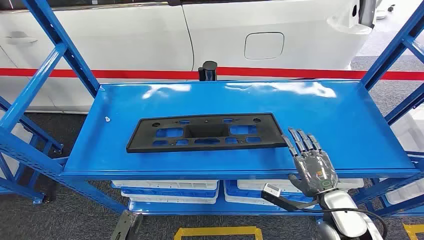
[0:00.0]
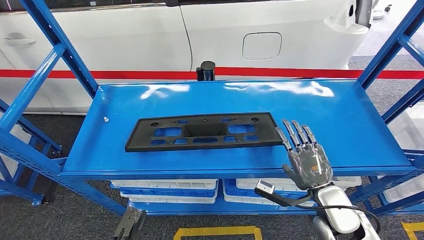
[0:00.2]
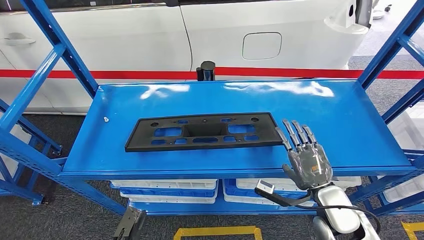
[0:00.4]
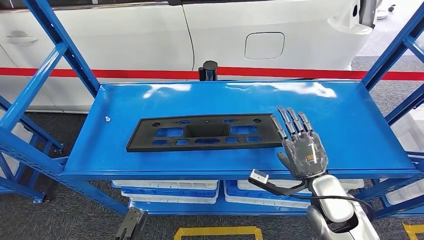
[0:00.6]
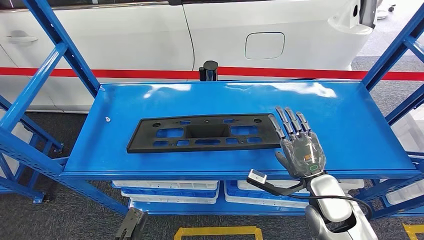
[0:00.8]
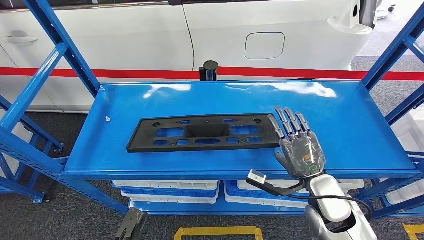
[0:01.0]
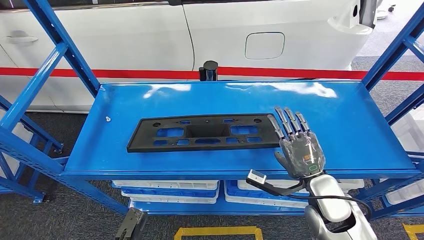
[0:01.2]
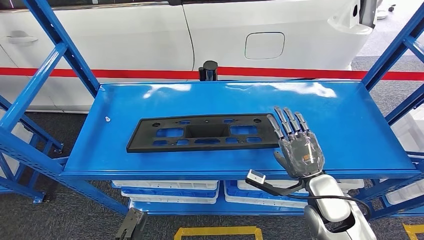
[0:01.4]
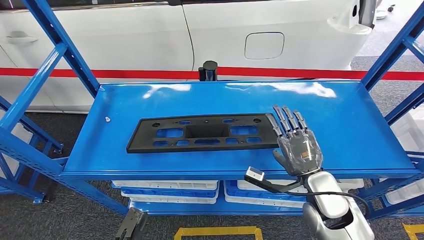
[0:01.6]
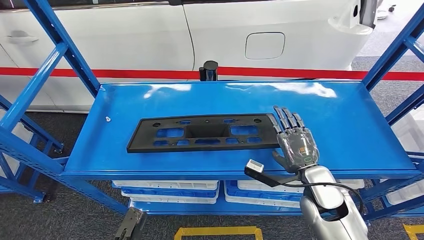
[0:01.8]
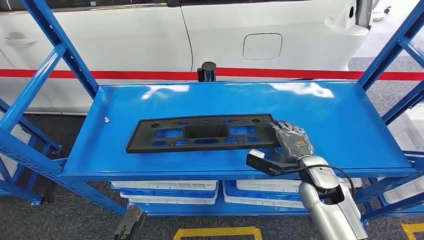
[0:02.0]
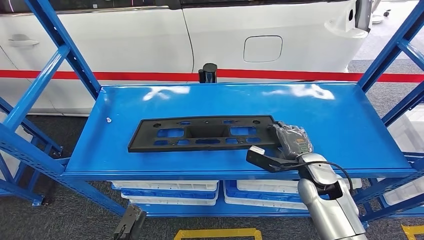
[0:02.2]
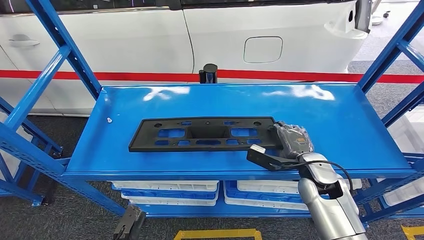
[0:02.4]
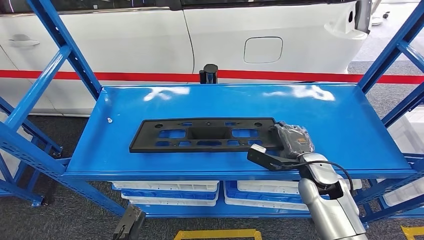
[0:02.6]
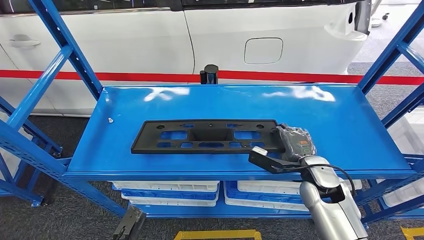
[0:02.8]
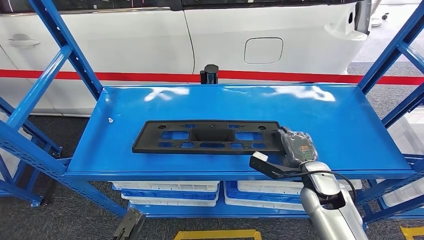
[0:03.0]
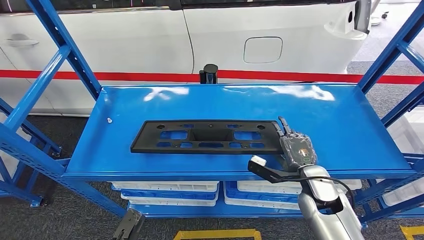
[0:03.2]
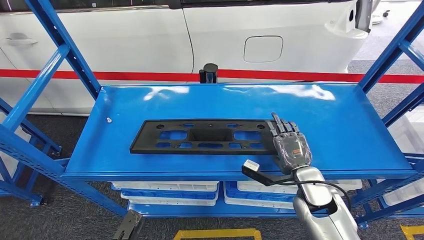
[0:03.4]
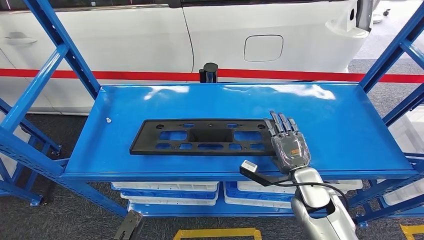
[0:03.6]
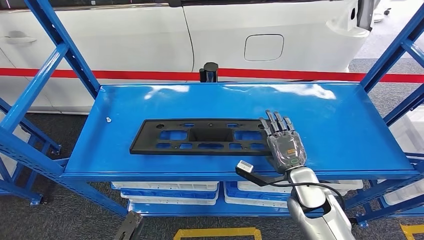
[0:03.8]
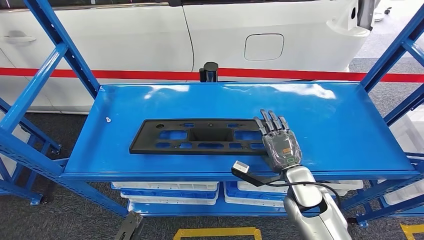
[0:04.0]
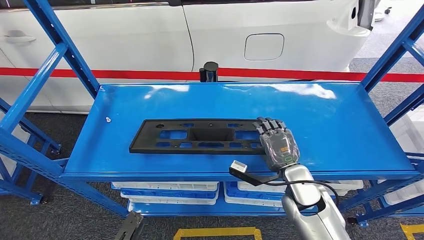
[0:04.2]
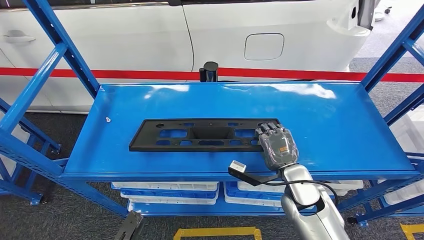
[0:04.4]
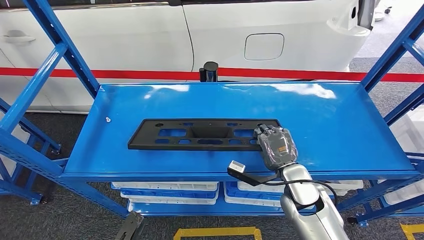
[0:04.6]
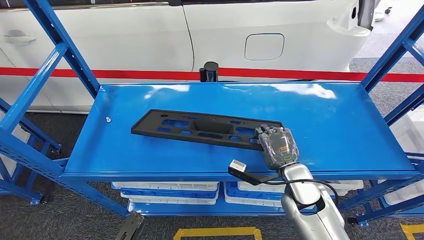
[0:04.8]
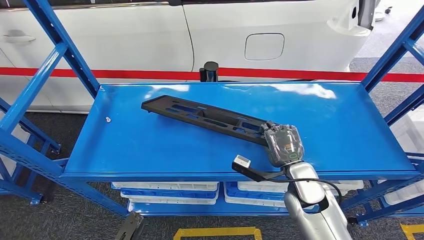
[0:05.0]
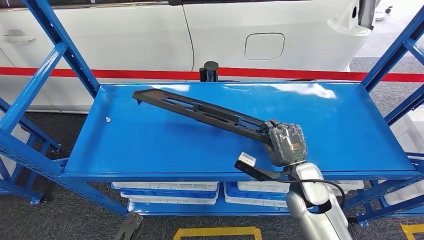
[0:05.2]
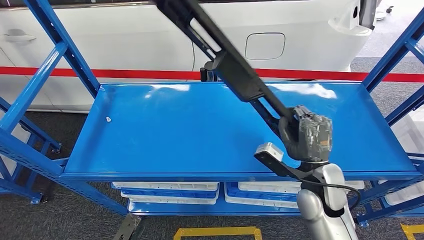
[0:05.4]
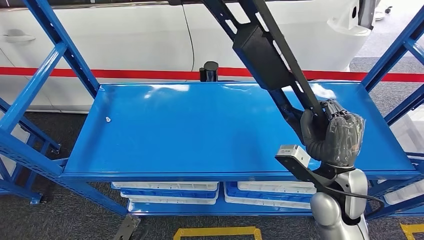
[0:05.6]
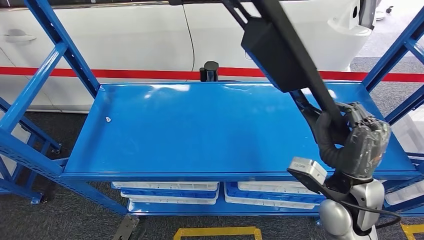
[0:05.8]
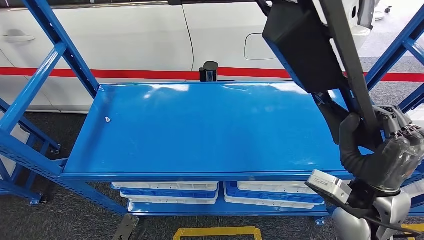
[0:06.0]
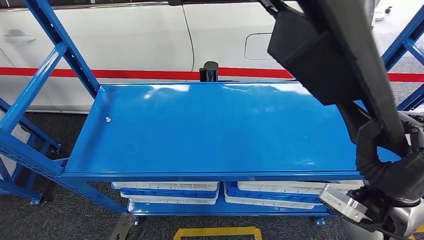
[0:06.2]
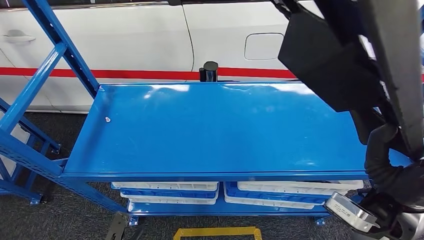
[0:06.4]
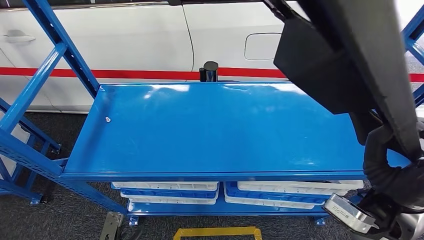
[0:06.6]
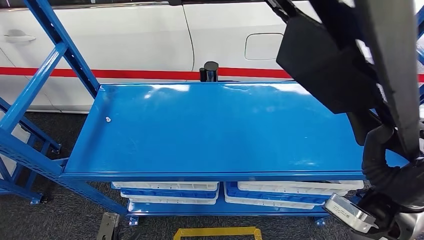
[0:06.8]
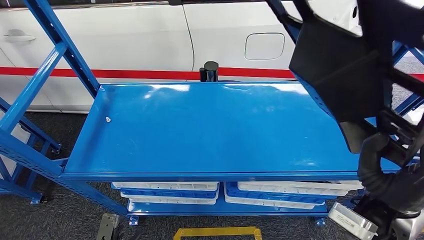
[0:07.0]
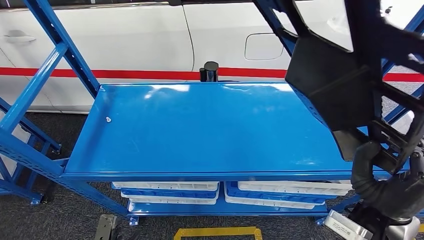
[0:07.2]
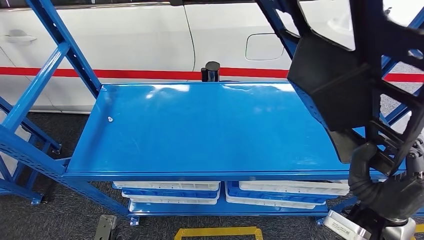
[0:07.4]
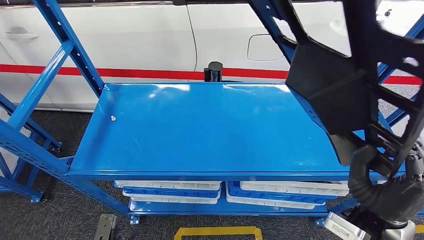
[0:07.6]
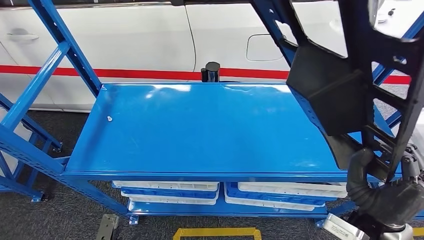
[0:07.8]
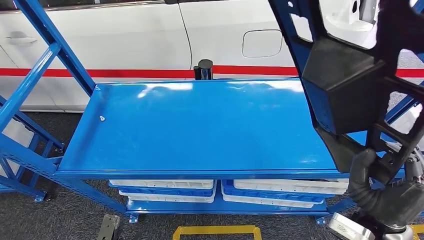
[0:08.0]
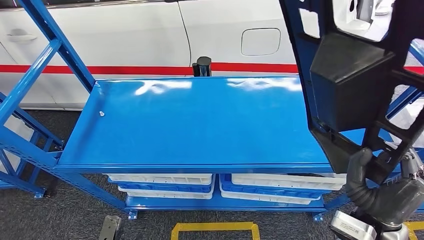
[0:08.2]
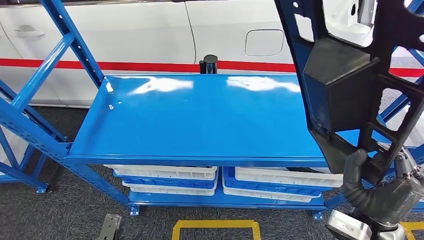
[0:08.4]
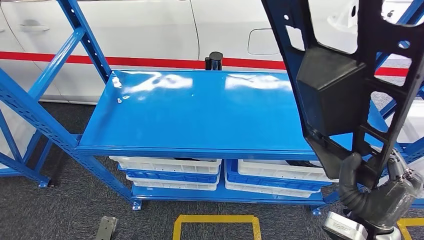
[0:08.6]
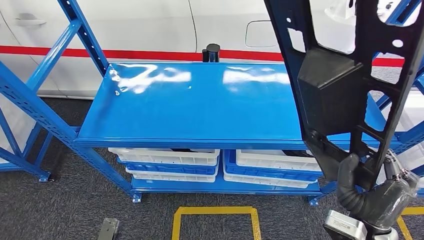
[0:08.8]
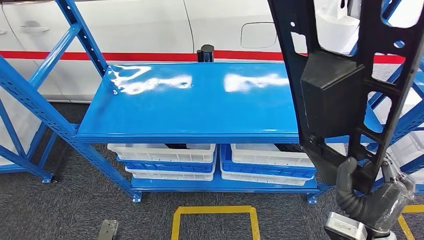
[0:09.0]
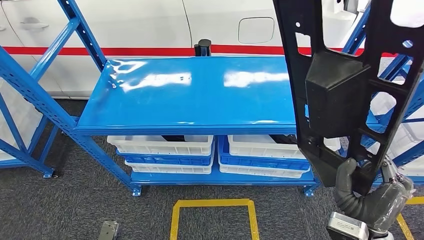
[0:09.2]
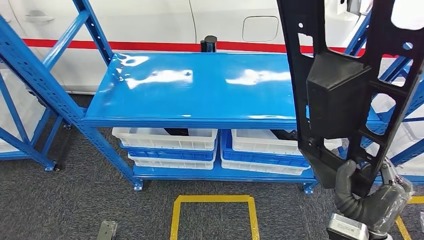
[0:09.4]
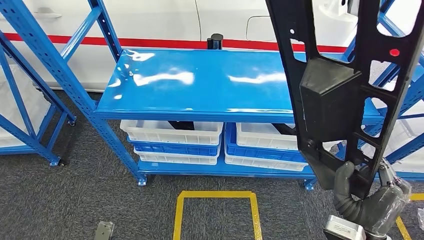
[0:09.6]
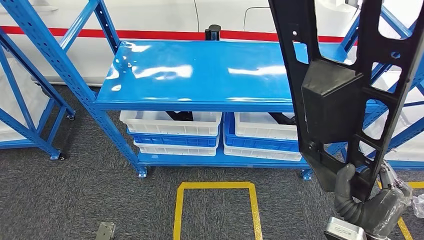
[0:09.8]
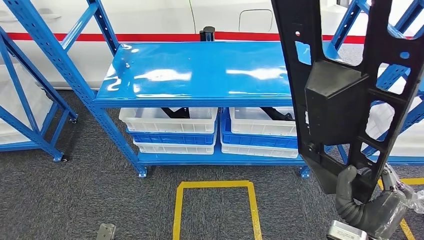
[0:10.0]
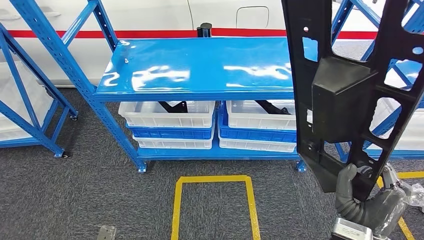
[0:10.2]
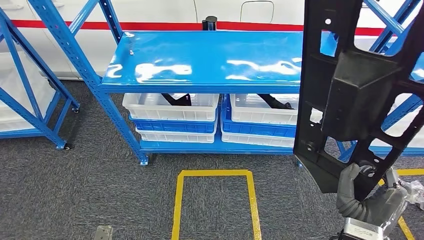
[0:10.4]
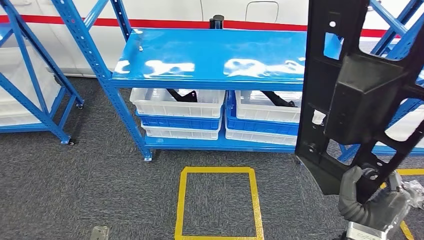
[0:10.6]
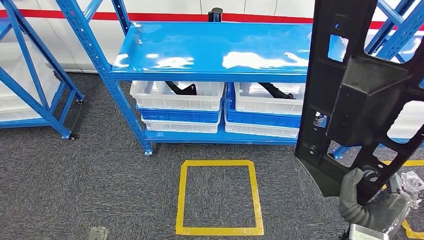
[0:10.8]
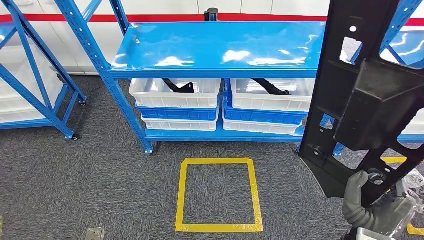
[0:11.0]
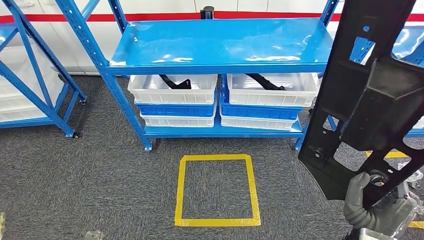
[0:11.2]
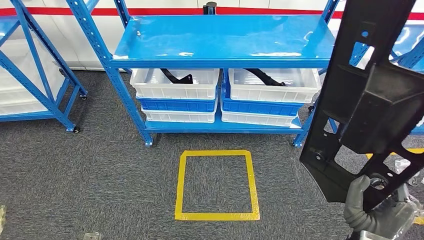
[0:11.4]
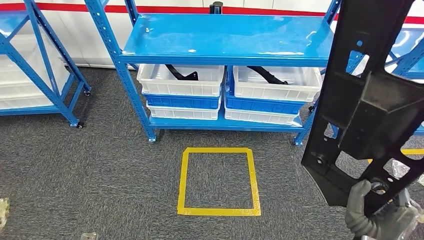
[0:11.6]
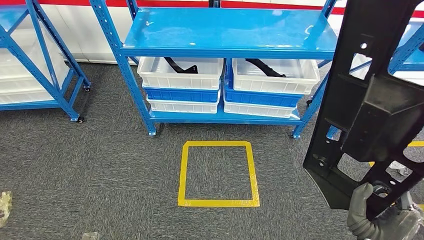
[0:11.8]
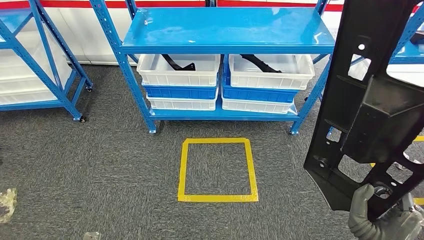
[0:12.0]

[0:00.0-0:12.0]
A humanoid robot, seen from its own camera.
Step, 0:00.0 to 0:08.4: Pick up the large material from the shelf.

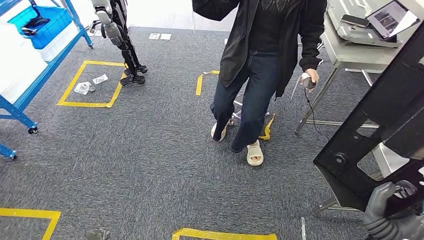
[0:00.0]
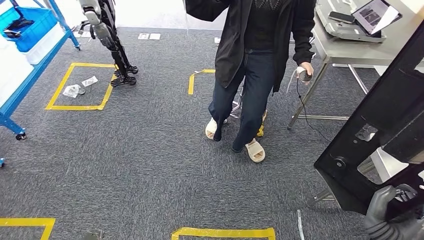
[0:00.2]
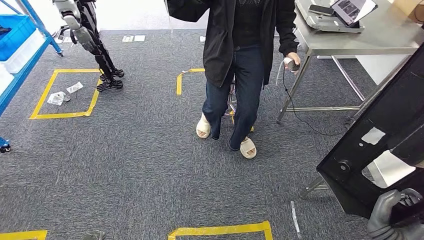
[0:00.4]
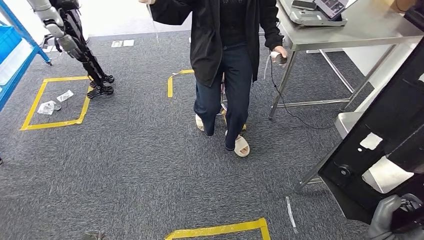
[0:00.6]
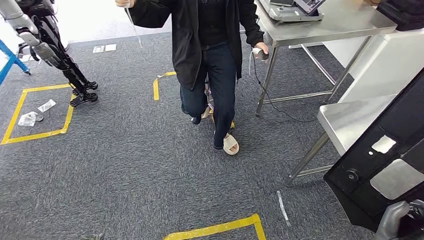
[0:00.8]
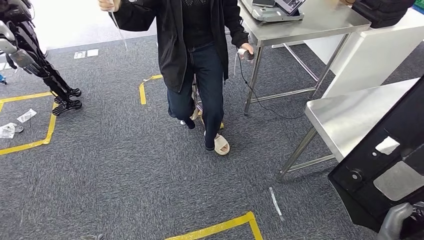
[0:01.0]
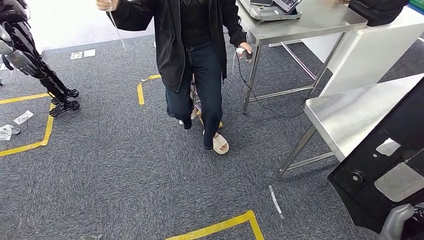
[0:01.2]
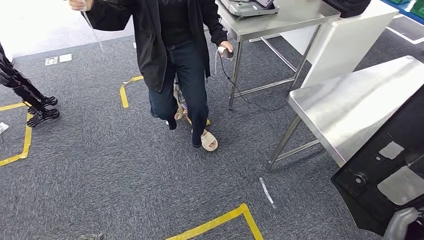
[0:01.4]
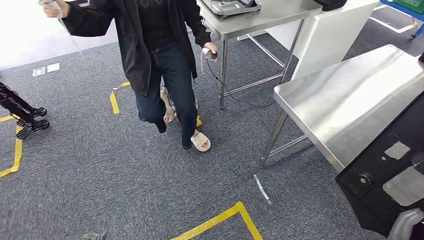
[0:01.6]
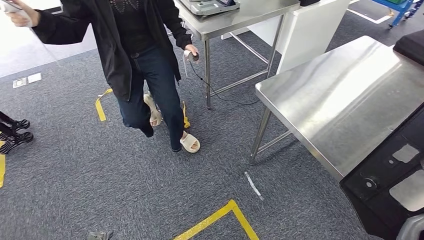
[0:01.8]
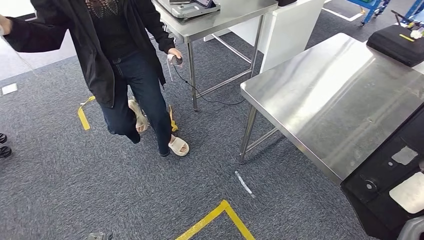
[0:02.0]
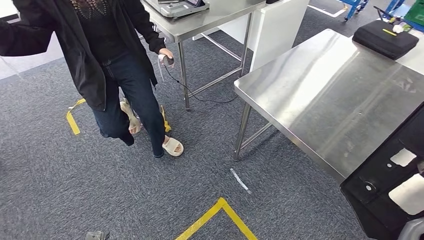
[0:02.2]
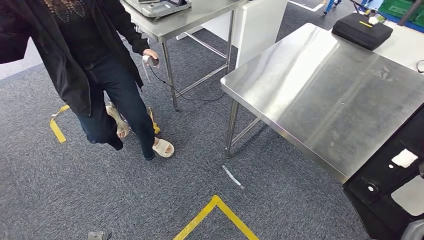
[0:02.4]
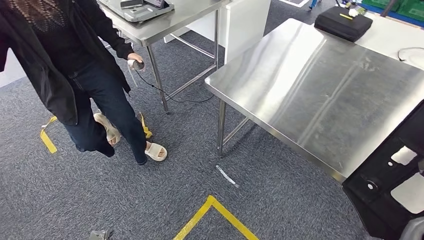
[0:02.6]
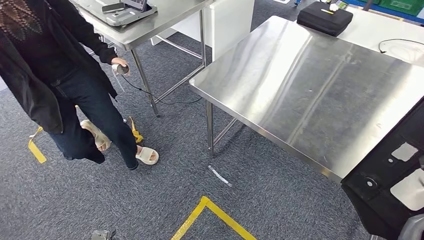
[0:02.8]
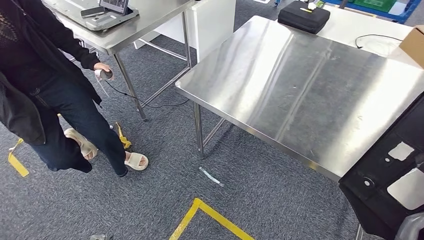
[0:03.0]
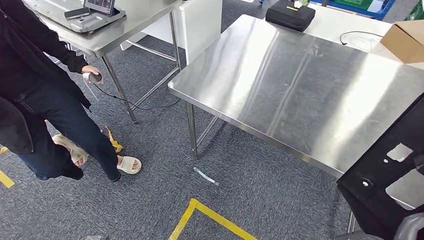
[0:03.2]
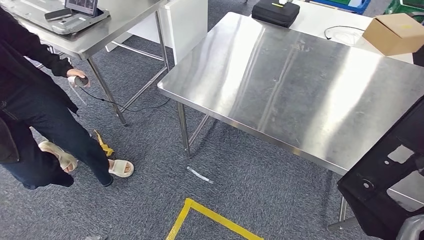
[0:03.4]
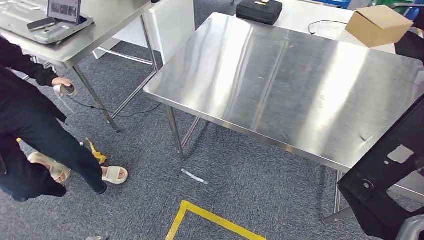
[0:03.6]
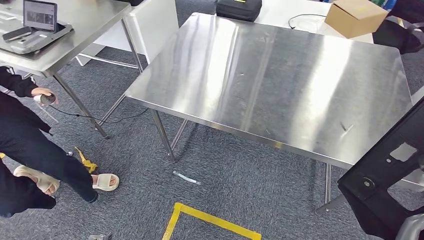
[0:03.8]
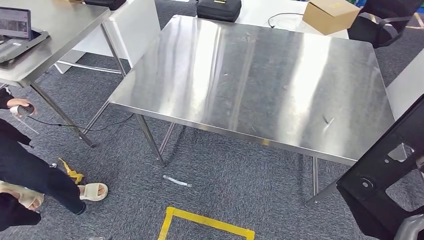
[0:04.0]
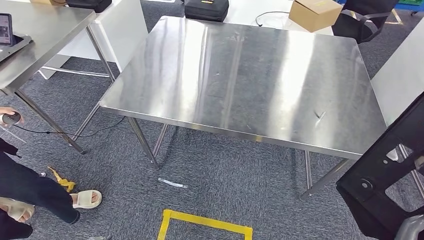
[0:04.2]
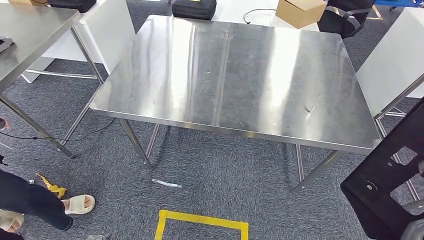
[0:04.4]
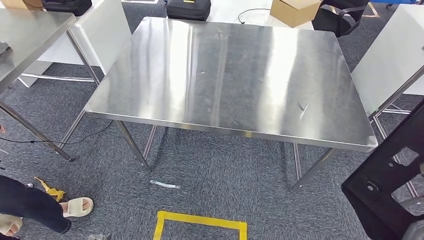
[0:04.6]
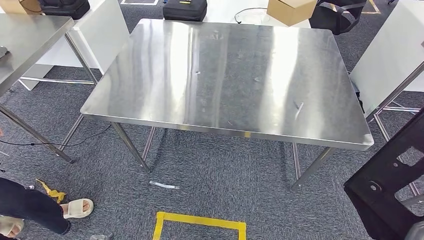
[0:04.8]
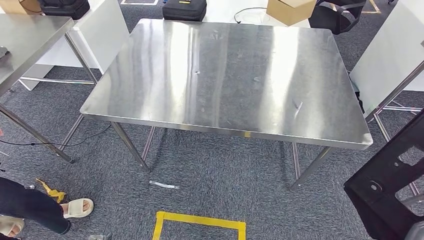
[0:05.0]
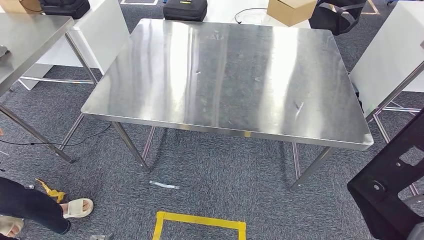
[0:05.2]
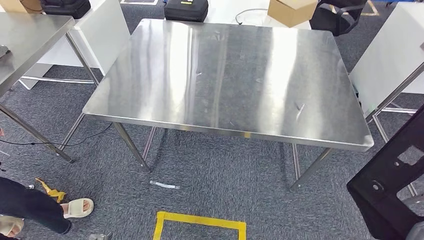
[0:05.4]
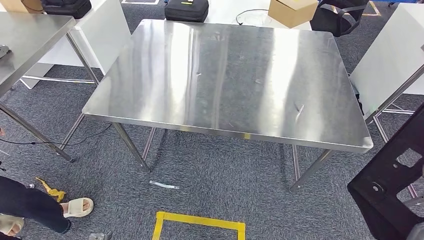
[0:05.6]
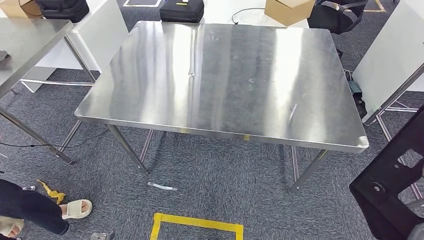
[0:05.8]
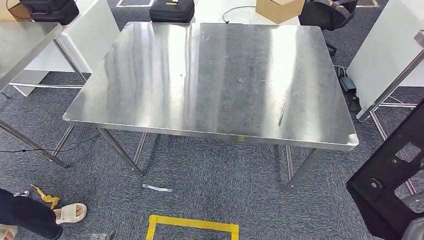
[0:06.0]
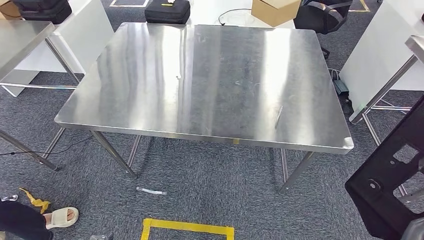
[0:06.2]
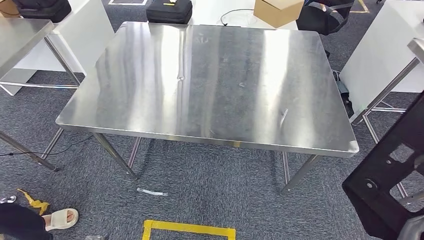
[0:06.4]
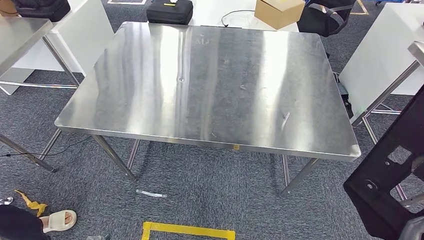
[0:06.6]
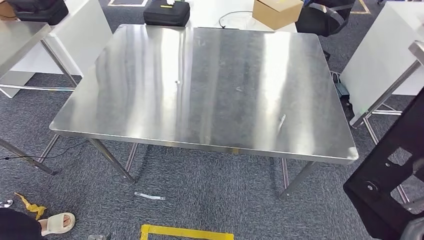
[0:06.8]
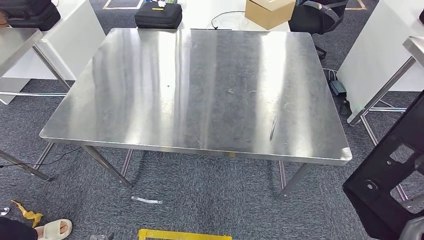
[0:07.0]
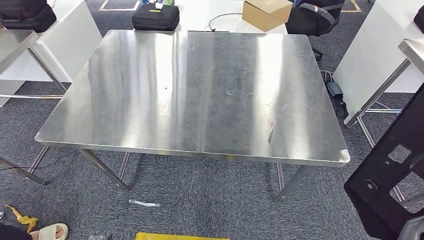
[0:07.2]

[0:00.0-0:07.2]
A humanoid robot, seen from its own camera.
Step, 0:00.0 to 0:07.0: Move the large material to the front of the workbench.
